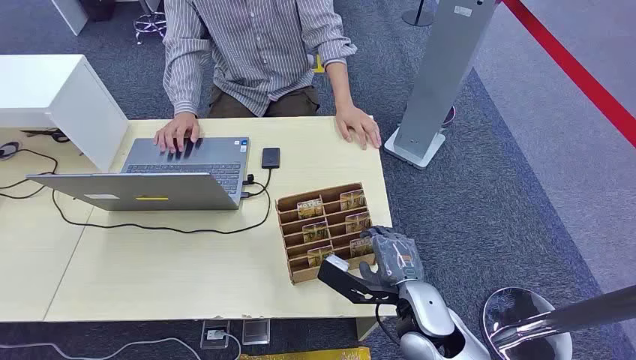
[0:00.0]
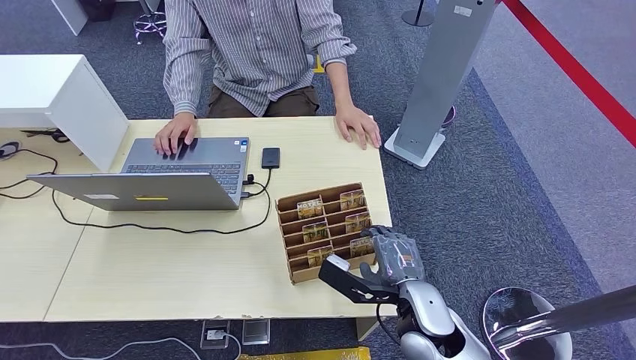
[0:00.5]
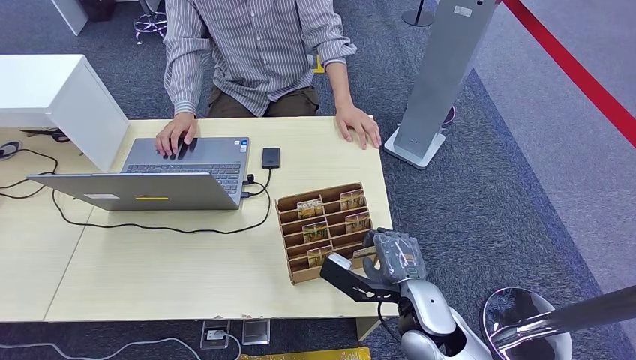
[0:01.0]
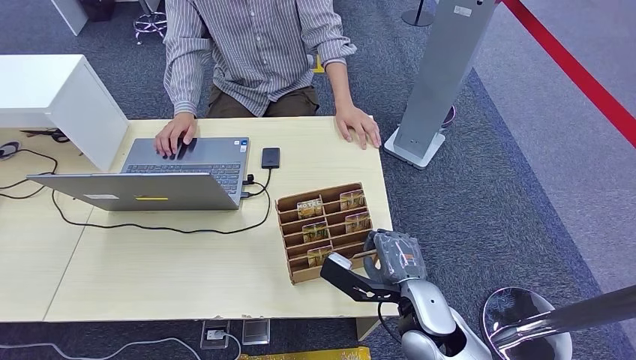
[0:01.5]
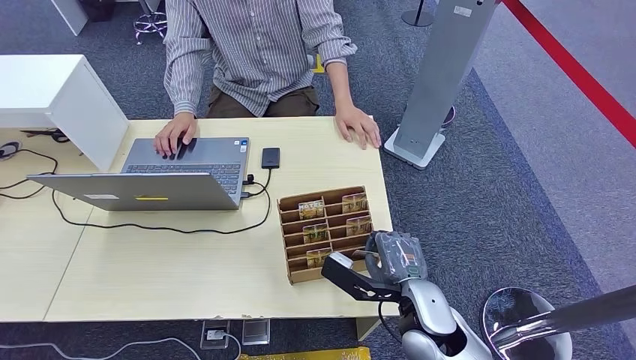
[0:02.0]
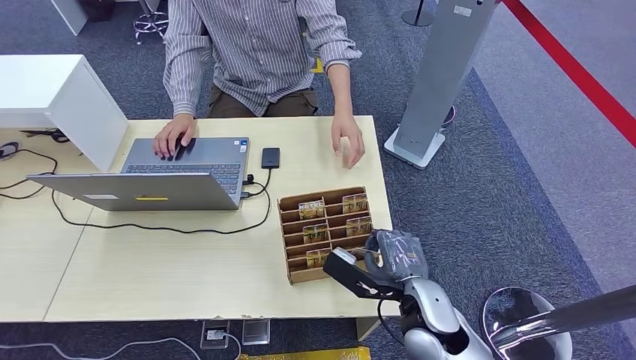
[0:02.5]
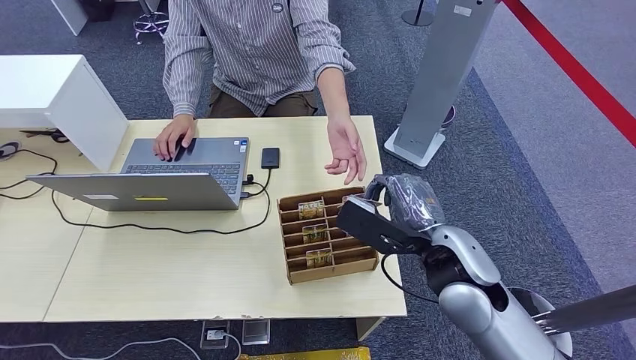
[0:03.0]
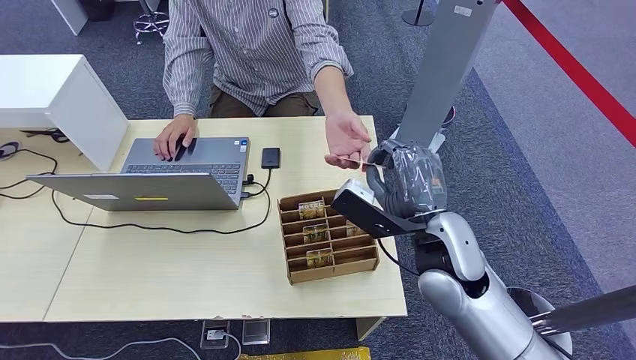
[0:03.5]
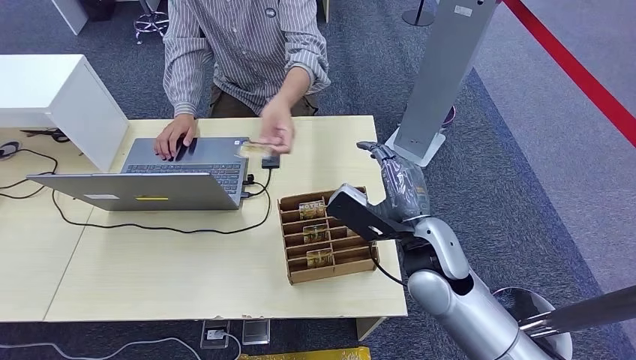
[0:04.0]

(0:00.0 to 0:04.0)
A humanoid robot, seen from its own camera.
Step, 0:00.0 - 0:02.5: Pick up the key card from the card box.
Step, 0:03.5 - 0:04.0: Hand the key card to the target.
0:02.0 - 0:04.0: The right hand is displaced upward and forward by about 10 cm.

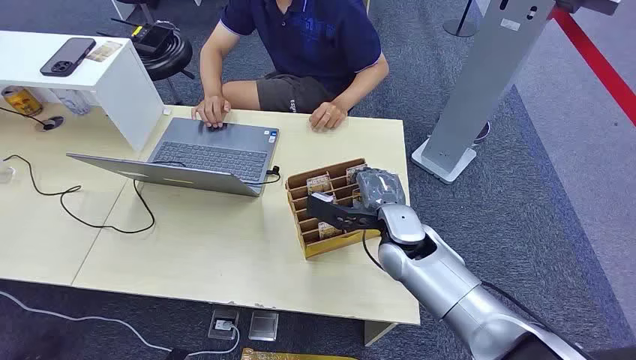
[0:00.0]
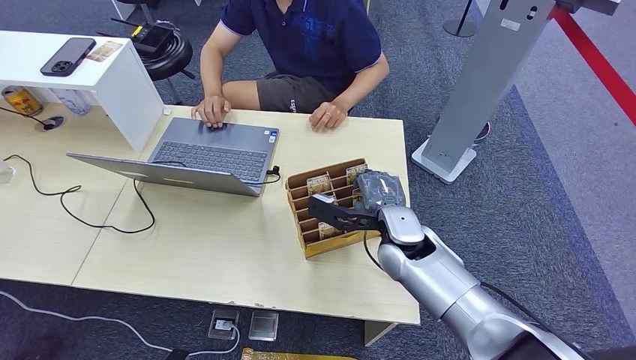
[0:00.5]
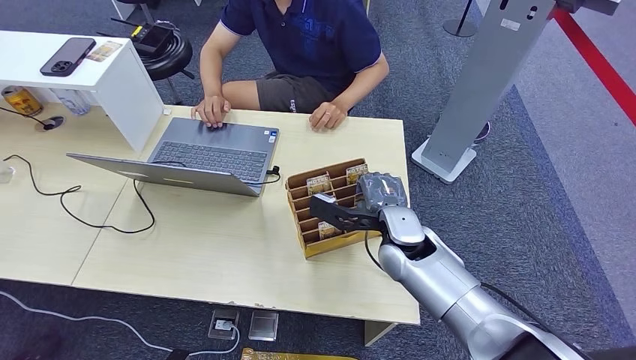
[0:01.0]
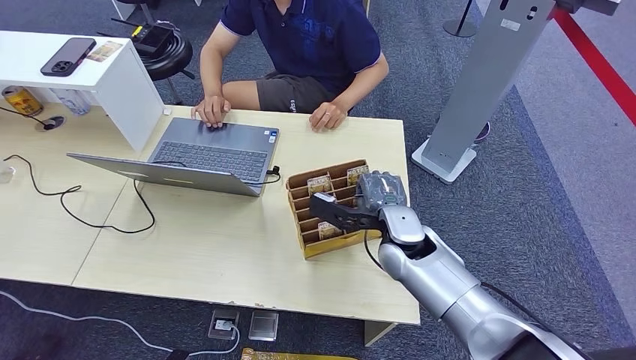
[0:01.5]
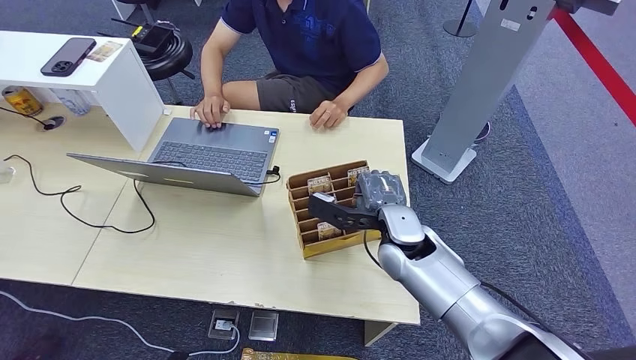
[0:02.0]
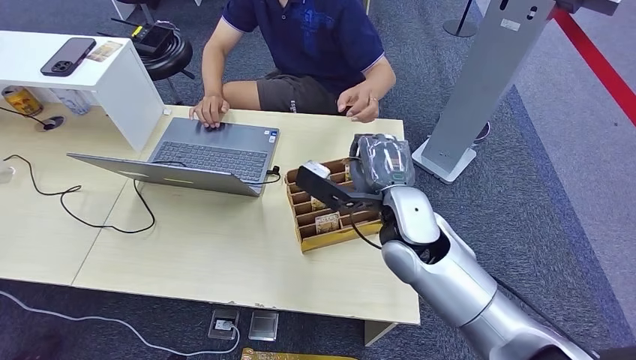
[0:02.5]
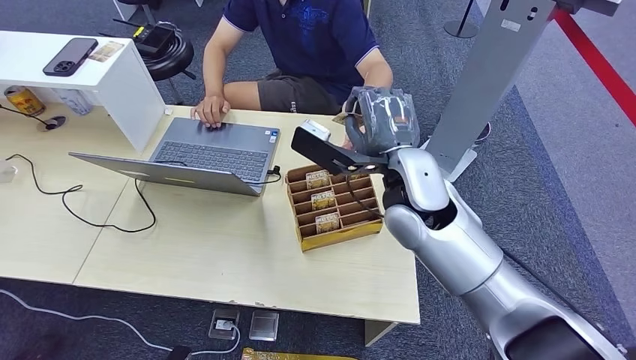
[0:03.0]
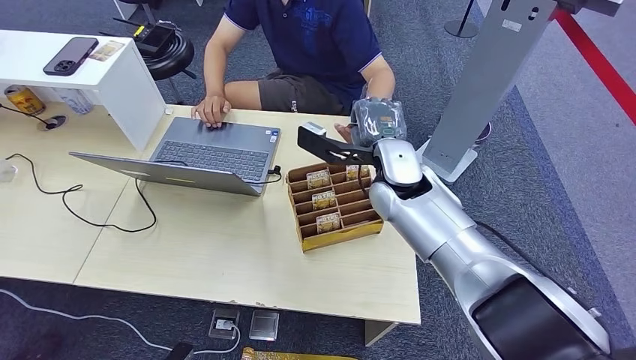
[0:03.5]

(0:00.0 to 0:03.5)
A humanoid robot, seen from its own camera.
Step, 0:00.0 - 0:02.0: Pick up the key card from the card box.
Step, 0:02.5 - 0:03.5: Hand the key card to the target.
0:02.0 - 0:03.5: The right hand moves upward and forward, about 10 cm.

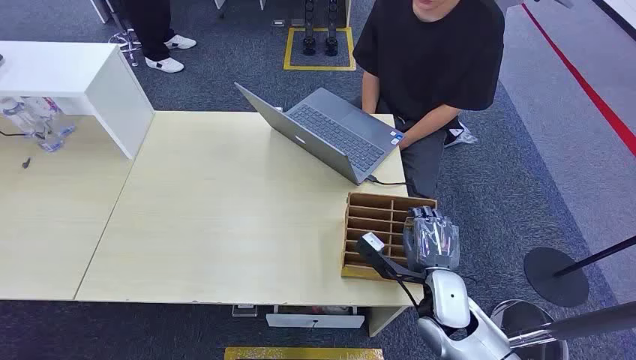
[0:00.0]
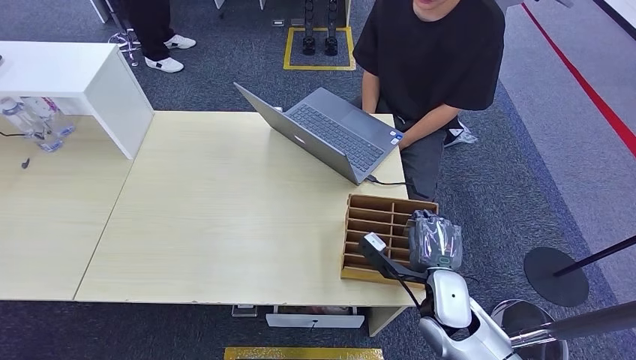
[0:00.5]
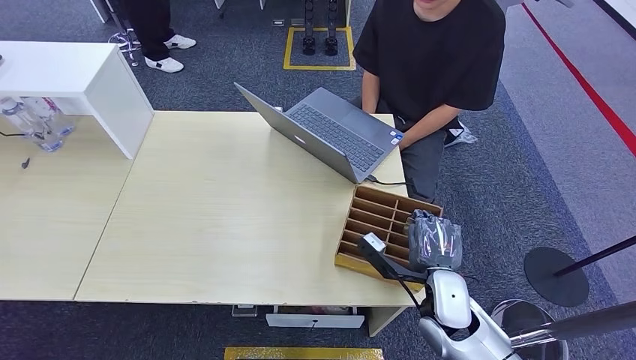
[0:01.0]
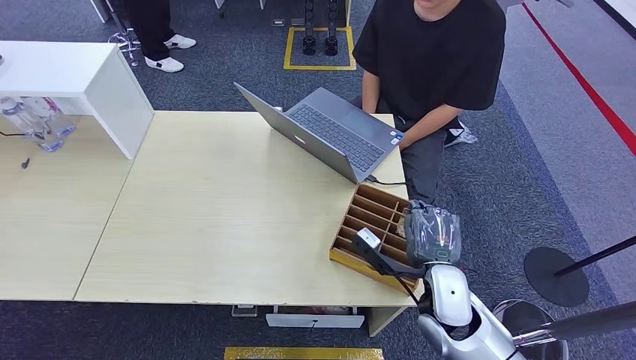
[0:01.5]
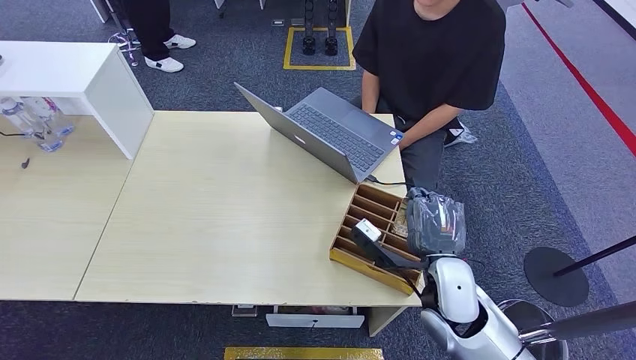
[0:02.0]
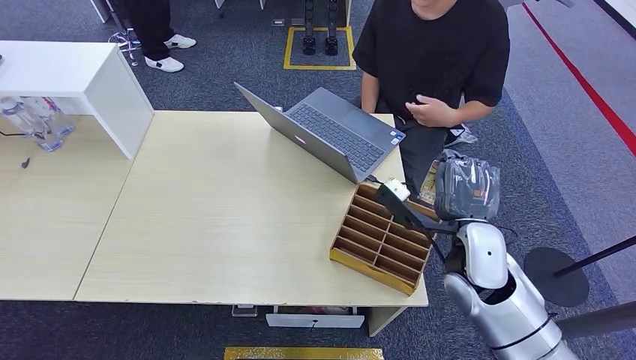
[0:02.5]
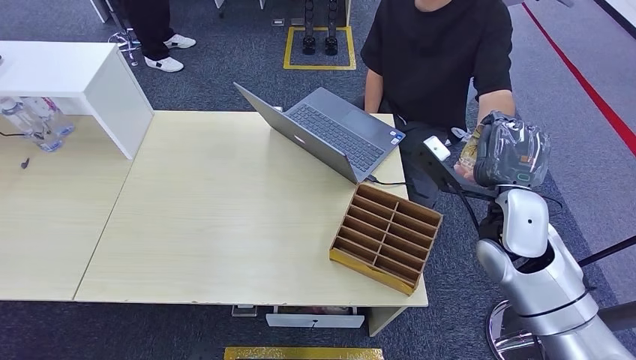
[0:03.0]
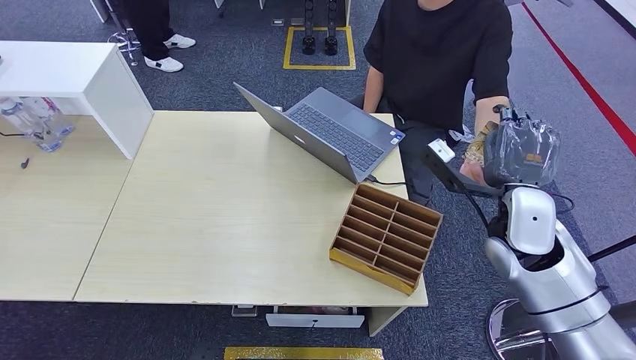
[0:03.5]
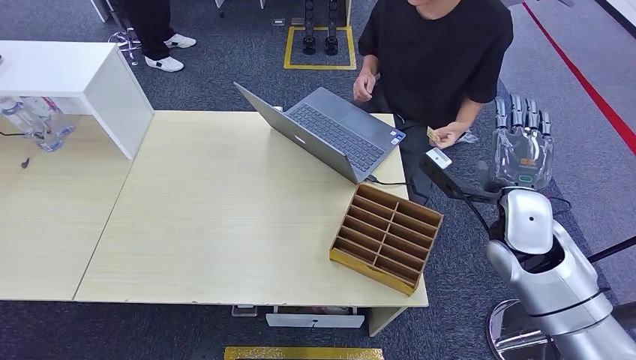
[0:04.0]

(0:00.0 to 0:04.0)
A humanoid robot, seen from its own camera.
Step, 0:00.0 - 0:02.5: Pick up the key card from the card box.
Step, 0:03.0 - 0:04.0: Hand the key card to the target.
0:02.0 - 0:04.0: The right hand travels to the right, upward and forward by some 15 cm.
